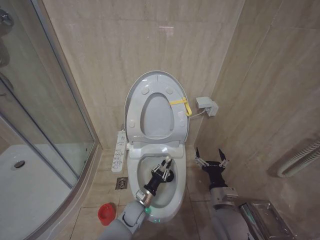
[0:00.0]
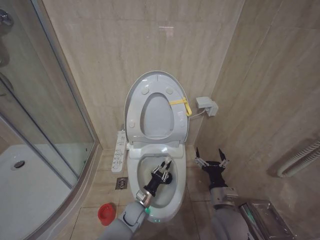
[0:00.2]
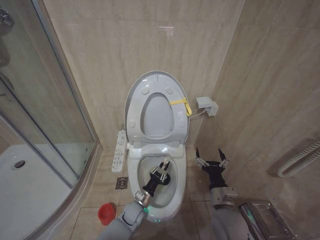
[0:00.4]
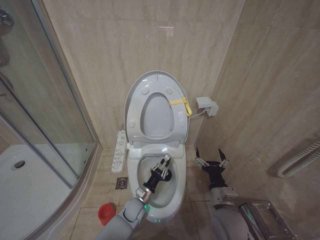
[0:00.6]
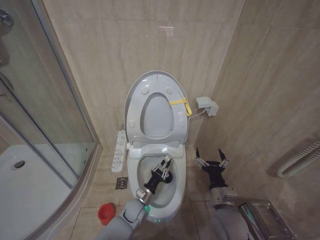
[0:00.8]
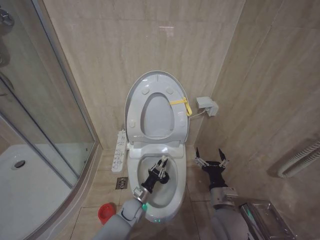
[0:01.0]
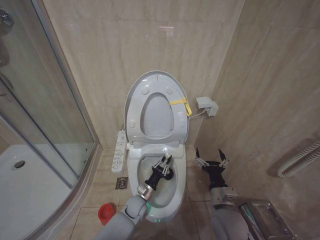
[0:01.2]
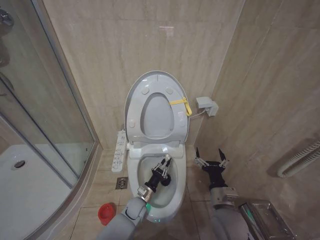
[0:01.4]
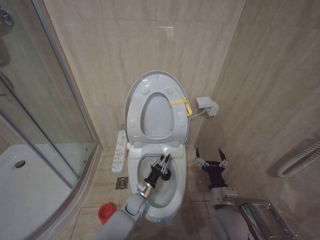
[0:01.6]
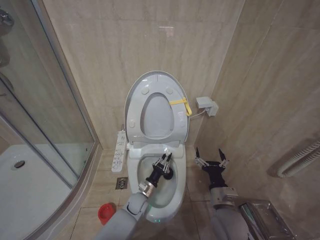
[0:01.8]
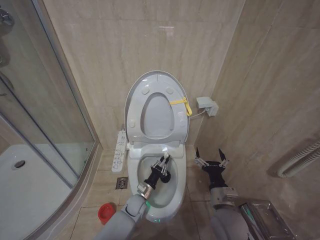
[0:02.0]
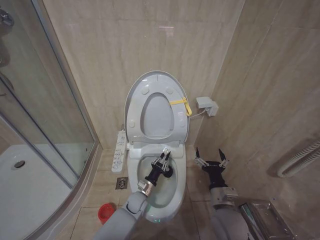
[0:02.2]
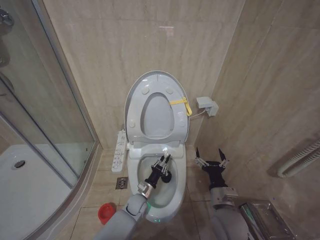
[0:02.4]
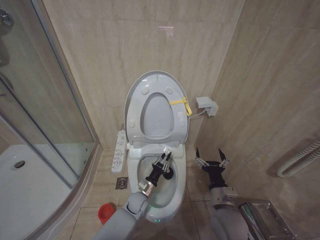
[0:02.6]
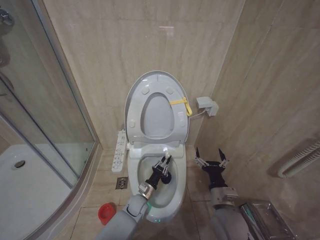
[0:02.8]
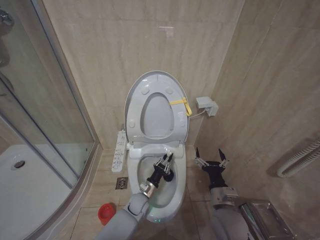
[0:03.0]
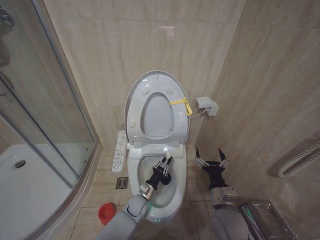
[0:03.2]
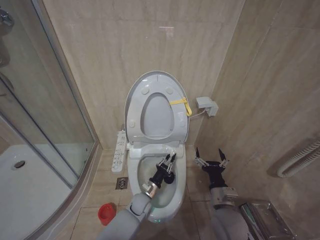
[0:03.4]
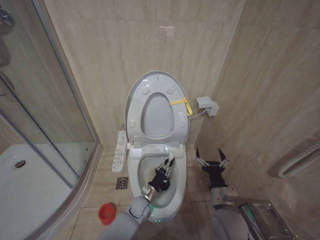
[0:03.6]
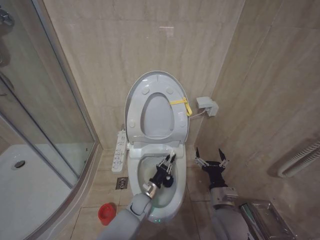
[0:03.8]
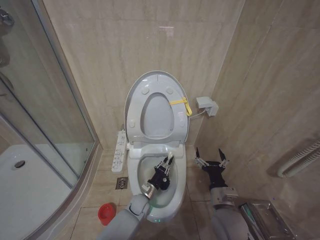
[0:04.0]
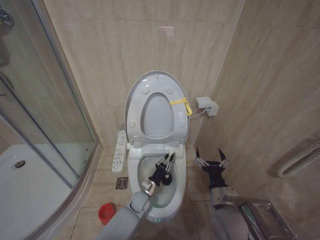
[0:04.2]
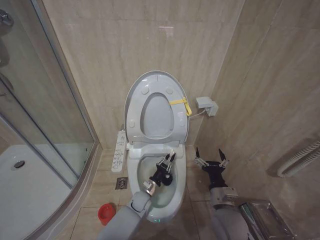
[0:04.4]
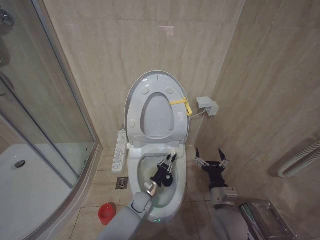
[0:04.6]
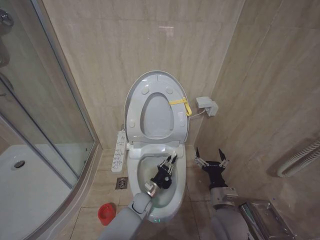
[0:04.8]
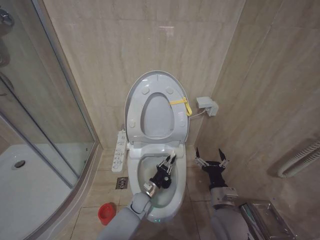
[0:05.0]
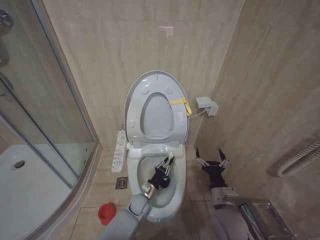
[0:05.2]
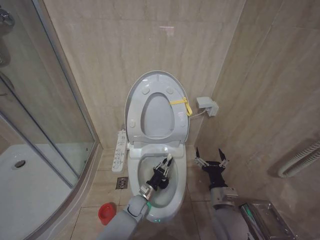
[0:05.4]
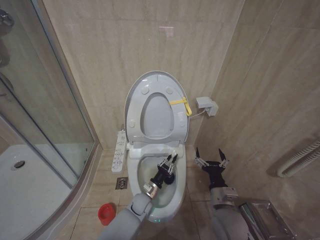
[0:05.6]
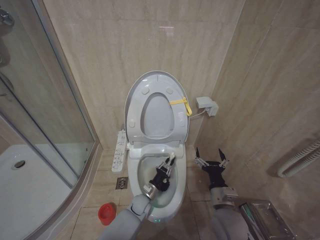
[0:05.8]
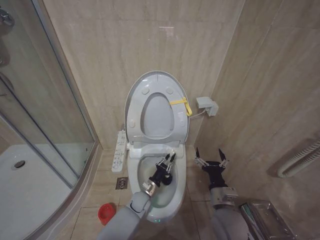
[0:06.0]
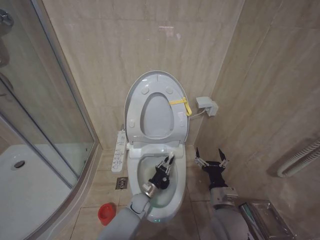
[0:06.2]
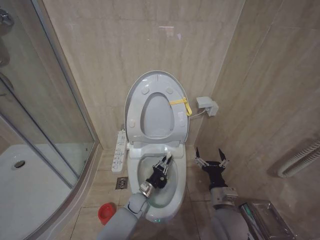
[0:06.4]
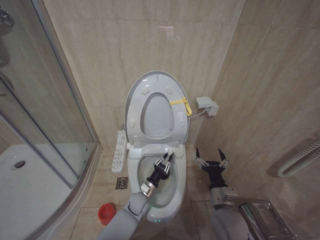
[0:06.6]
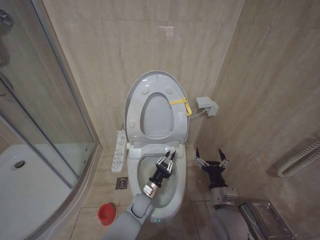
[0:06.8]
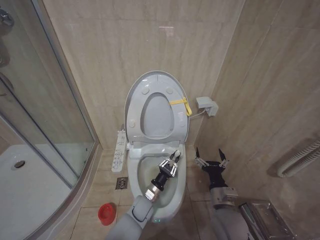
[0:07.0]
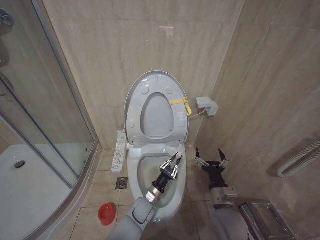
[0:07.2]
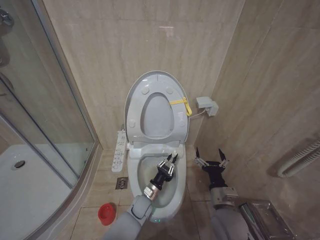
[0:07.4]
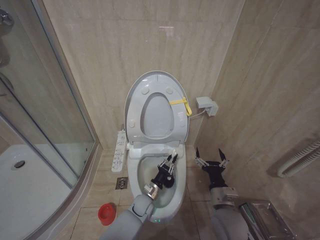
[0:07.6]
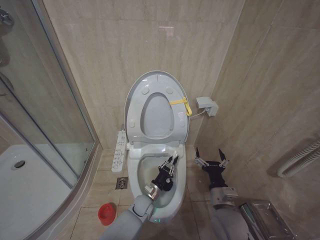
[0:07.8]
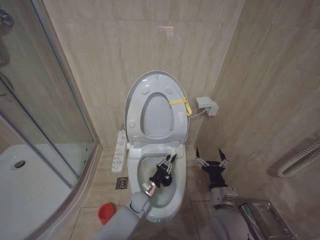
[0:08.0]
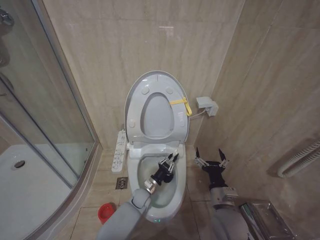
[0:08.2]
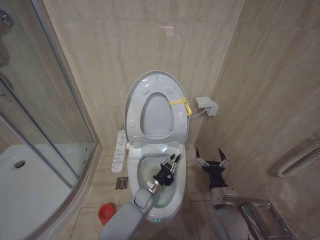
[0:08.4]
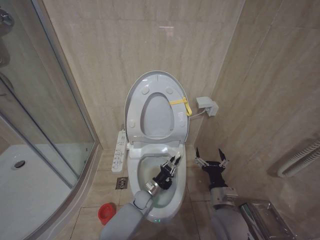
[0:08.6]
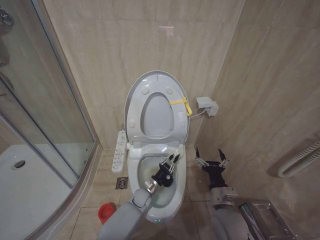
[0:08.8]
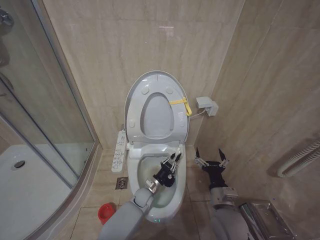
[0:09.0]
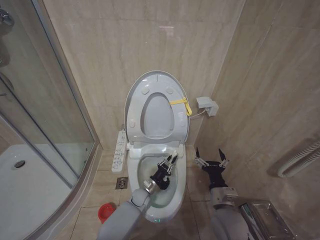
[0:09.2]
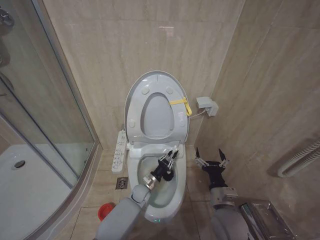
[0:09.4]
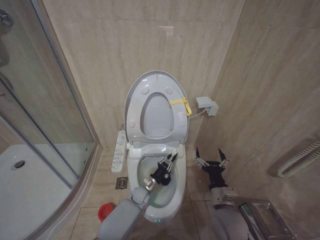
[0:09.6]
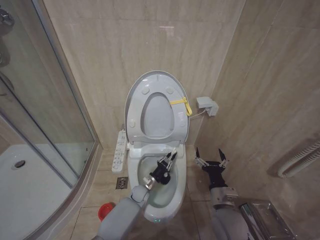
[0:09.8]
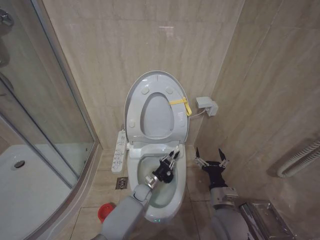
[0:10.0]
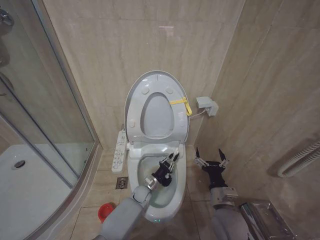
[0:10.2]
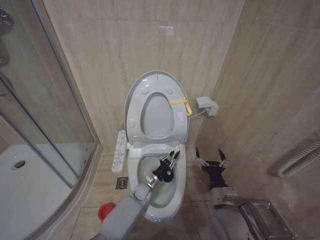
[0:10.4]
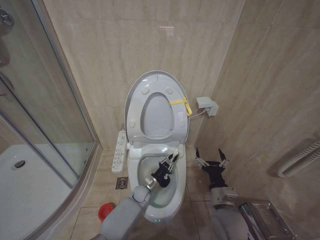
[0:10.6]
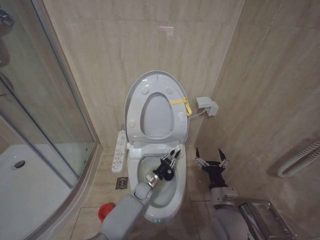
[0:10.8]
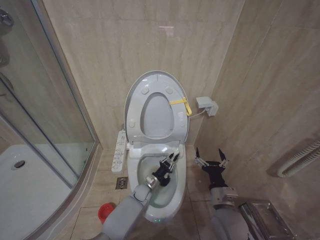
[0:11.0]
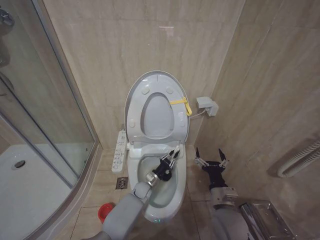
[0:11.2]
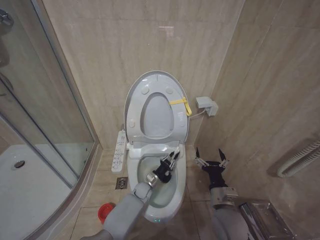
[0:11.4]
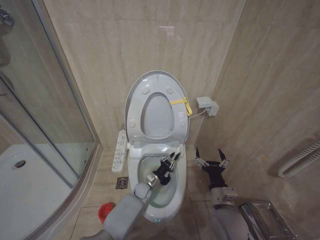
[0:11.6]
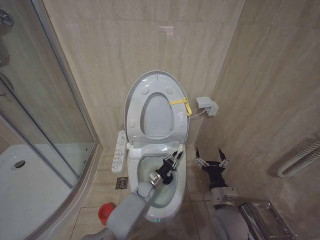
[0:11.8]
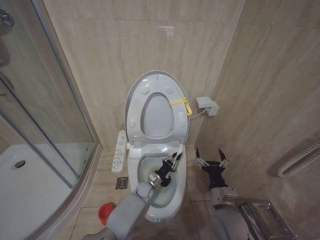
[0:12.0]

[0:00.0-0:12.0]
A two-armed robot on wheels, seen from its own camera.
Task of the whole recording: Open the toilet lid, clean the toilet bowl with a toilet brush, close the toilet lid, and flush.
0:00.0 to 0:03.0: There are only small adjustments of the grippers.
0:06.0 to 0:10.4: The grippers move only a little.
0:10.4 to 0:12.0: The grippers stay close to where they were, moving slightly.

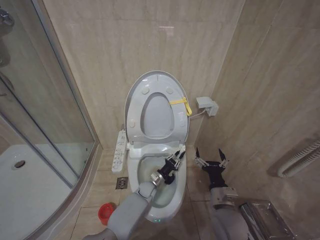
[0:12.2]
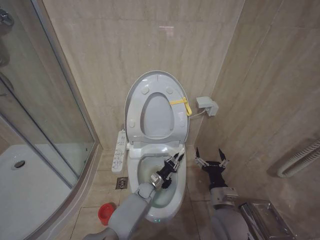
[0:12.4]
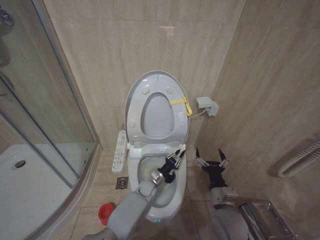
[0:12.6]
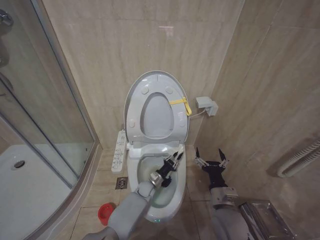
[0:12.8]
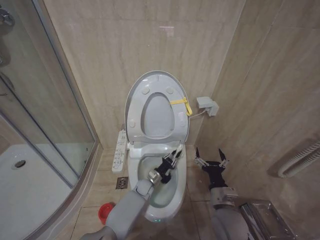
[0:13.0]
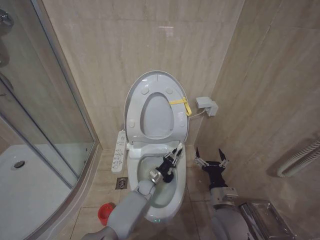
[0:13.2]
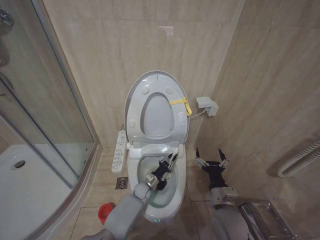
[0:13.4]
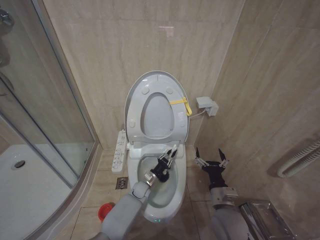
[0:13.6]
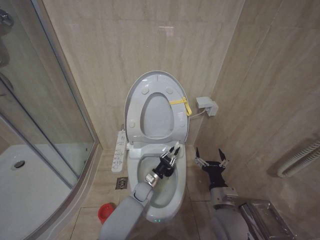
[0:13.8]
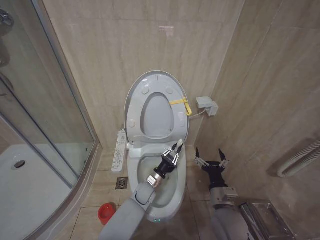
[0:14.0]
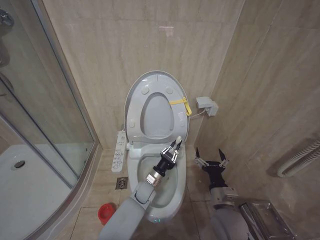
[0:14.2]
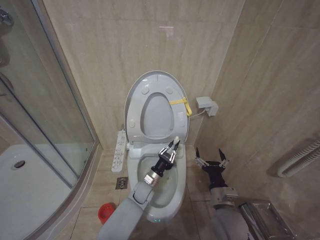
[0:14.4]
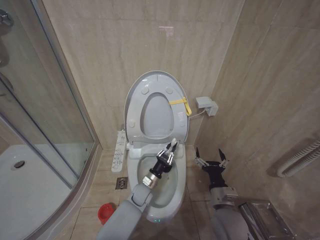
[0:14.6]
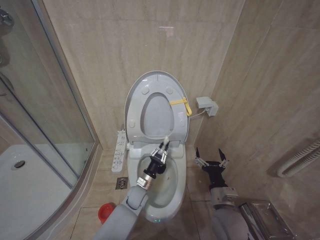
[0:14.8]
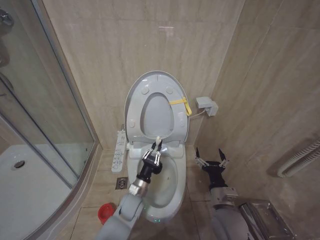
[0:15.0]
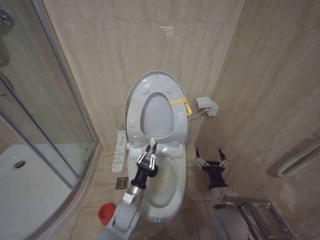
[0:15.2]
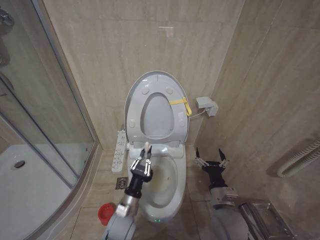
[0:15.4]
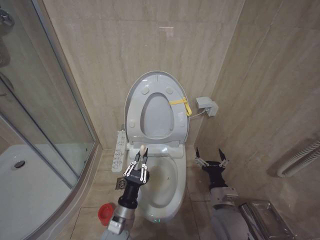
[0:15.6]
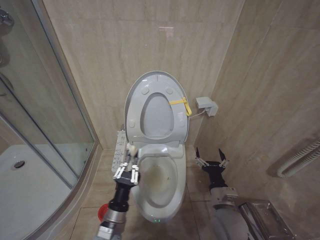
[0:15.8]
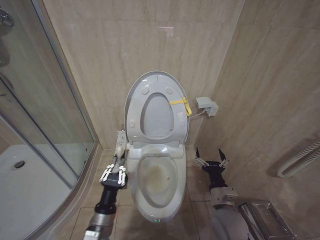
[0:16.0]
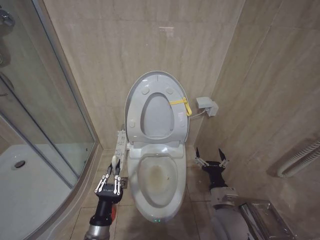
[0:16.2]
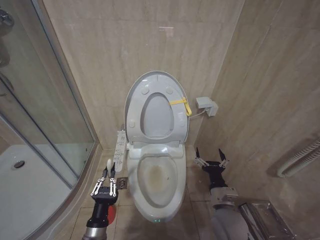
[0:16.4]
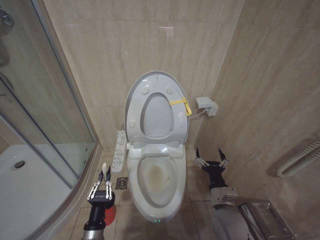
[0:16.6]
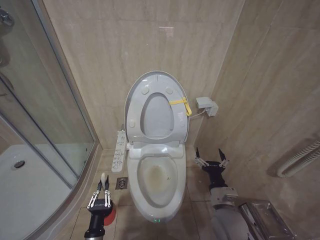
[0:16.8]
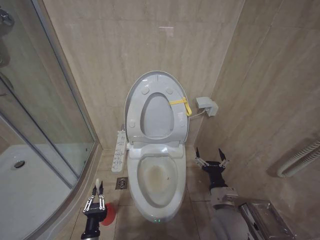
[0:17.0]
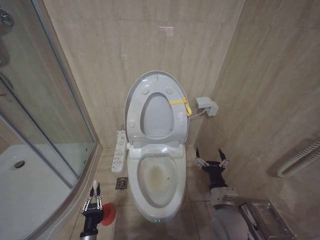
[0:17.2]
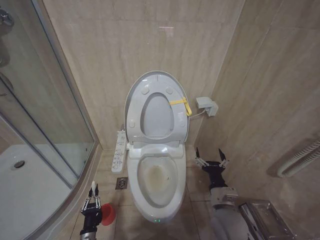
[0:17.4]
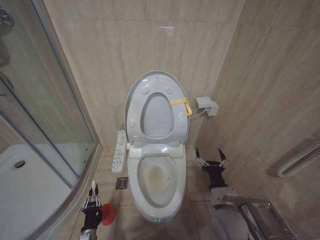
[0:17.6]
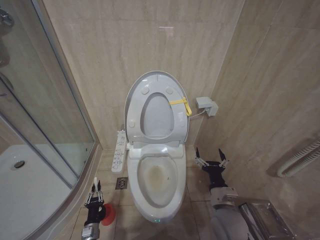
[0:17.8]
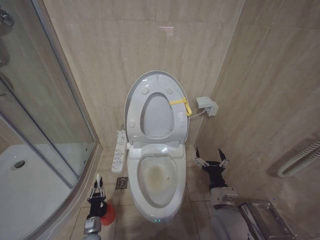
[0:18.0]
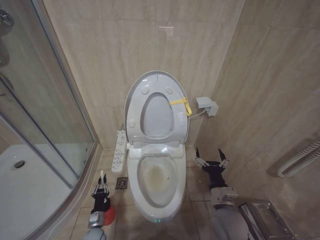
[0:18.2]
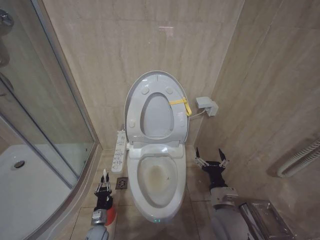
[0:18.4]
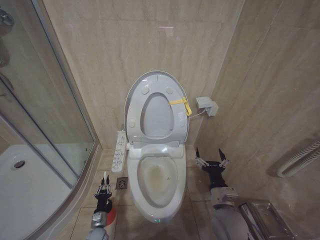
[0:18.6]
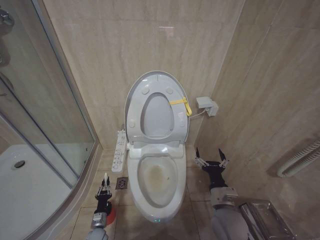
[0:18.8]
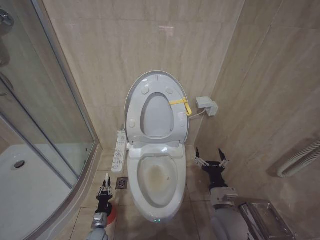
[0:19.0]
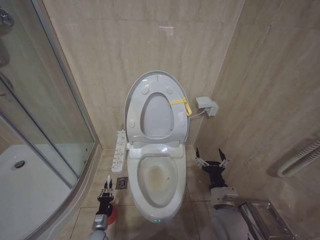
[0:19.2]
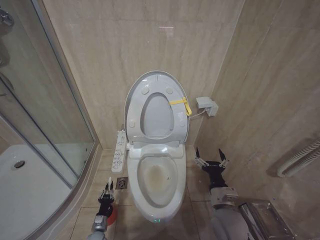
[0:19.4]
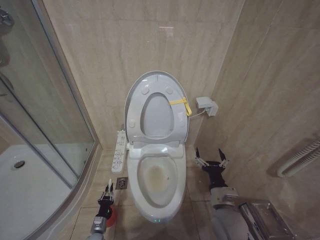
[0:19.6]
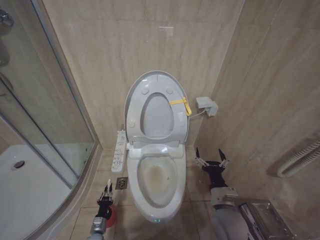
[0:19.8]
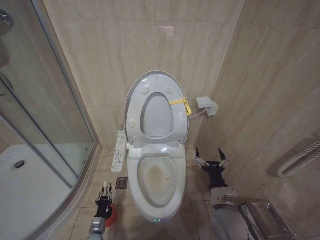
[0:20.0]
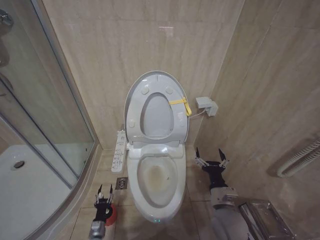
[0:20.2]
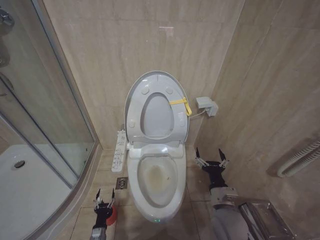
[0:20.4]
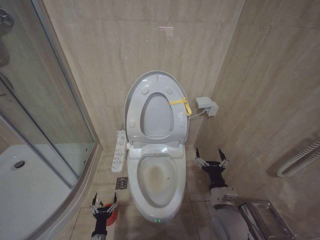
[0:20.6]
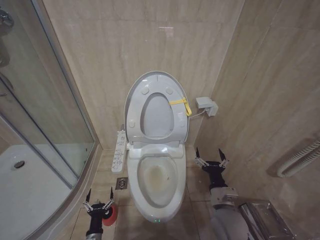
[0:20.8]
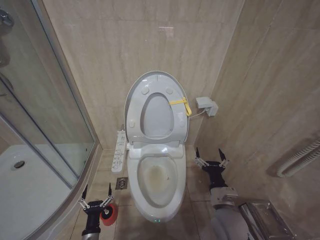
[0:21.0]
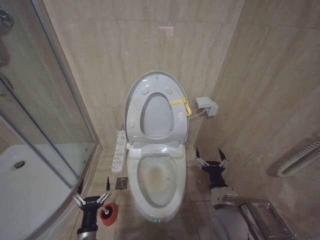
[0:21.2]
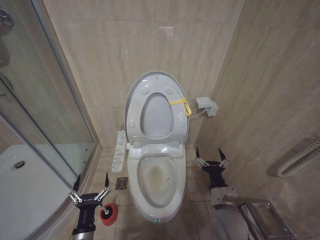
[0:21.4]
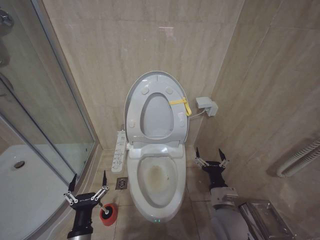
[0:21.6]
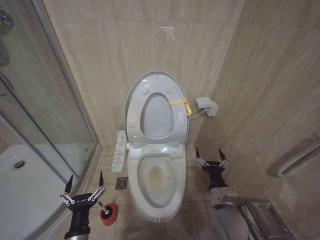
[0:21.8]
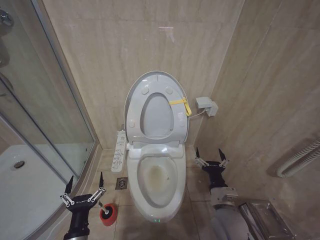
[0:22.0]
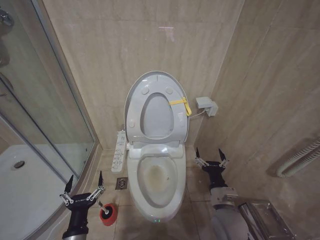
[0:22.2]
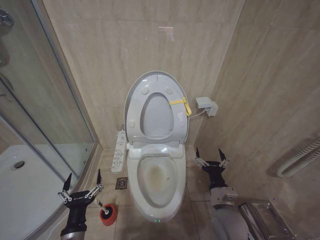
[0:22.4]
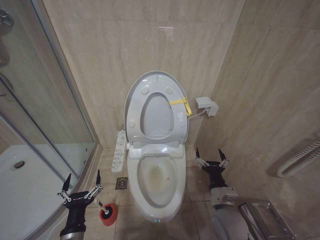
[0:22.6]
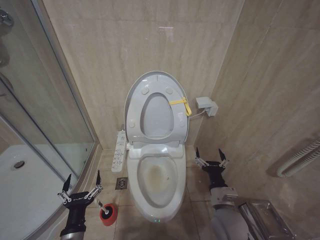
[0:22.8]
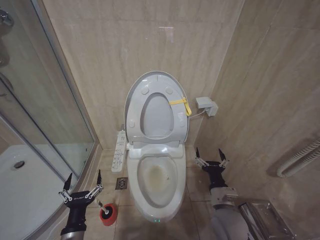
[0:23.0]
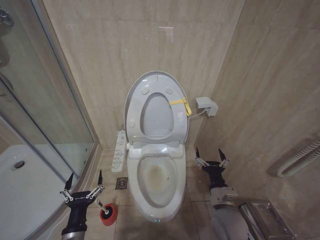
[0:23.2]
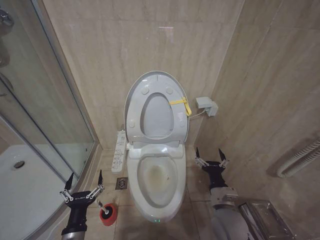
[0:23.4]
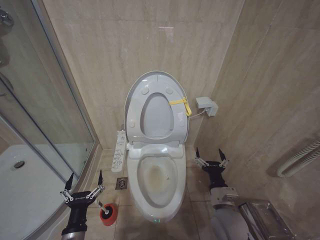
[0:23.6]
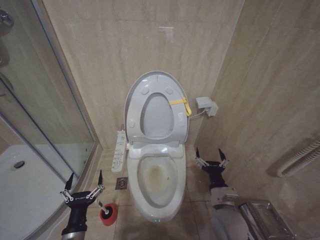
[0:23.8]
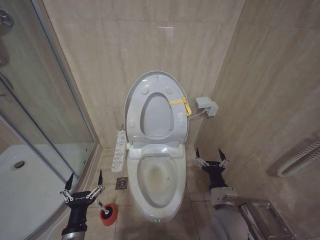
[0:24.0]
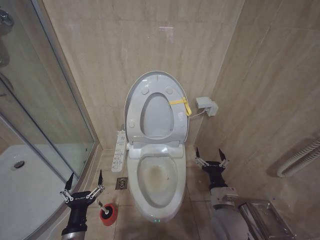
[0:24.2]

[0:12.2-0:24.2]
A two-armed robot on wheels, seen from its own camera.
Task of the whole recording: Open the toilet lid, clean the toilet bowl with a toilet brush, close the toilet lid, and flush.
0:12.2 to 0:13.8: There are only small adjustments of the grippers.
0:13.8 to 0:15.2: The left gripper shifts about 15 cm backward, upward and to the left.
0:15.2 to 0:16.6: The left gripper is displaced backward and to the left by approximately 20 cm.
0:16.6 to 0:18.2: The left gripper is displaced downward and forward by approximately 25 cm.
0:18.2 to 0:19.8: The left gripper travels downward by some 5 cm.
0:19.8 to 0:21.2: The left gripper is displaced upward and backward by approximately 20 cm, and opens up.
0:21.2 to 0:22.6: The left gripper is displaced upward by some 10 cm.
0:22.6 to 0:24.2: Neither gripper changes place.
